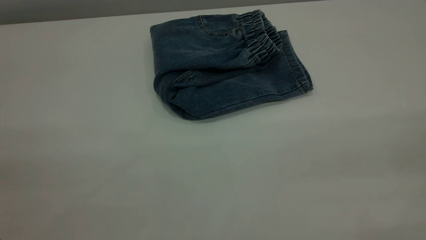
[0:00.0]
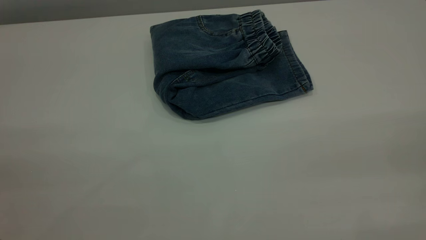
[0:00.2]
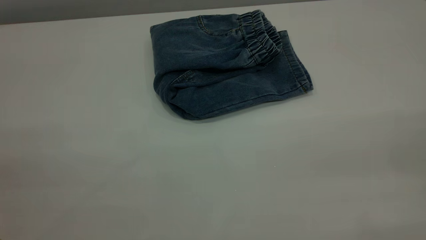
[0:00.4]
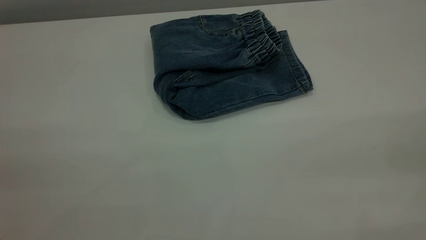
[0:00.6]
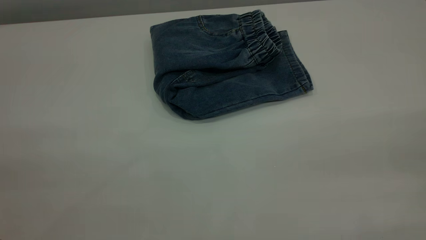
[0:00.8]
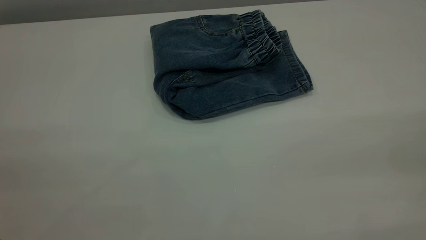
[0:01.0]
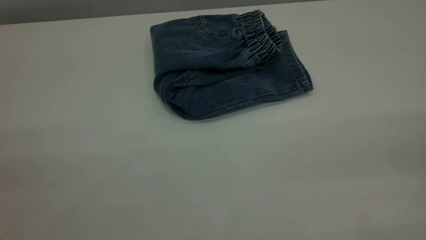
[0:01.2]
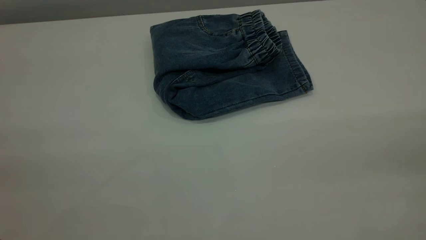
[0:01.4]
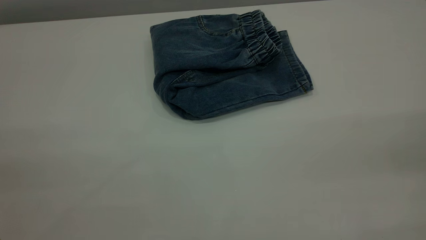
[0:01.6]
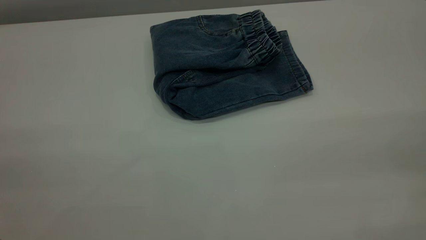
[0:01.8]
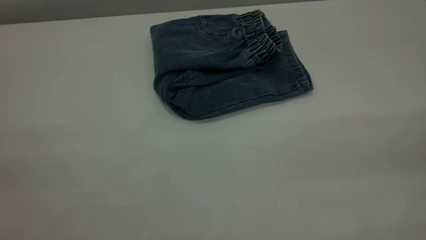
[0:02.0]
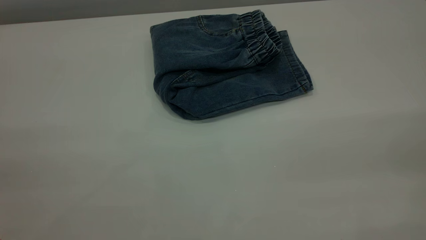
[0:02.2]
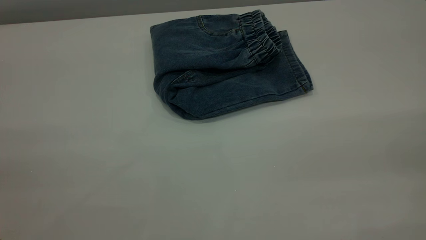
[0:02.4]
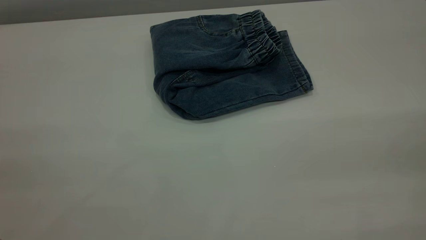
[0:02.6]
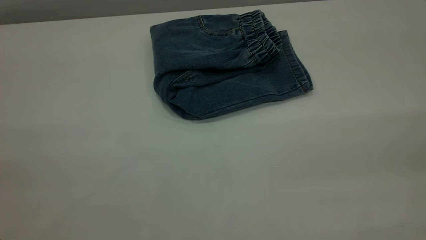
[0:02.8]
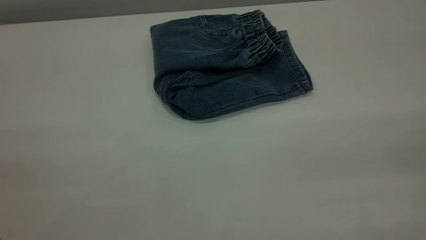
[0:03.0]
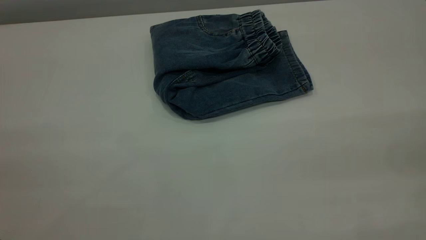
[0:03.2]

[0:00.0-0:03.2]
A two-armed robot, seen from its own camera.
0:00.0 to 0:03.2: Neither gripper changes place.
